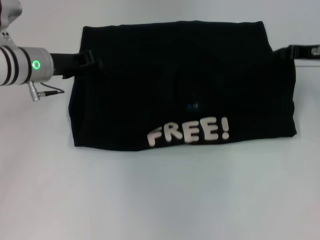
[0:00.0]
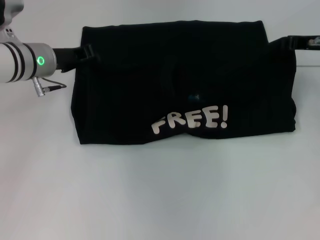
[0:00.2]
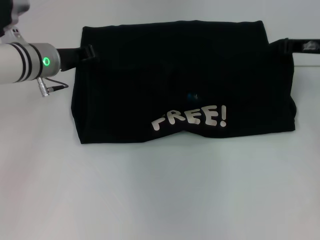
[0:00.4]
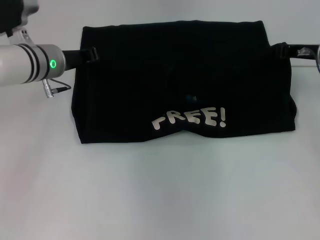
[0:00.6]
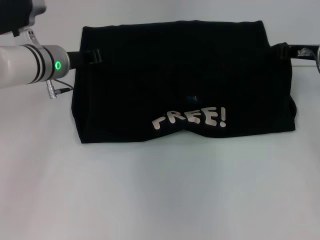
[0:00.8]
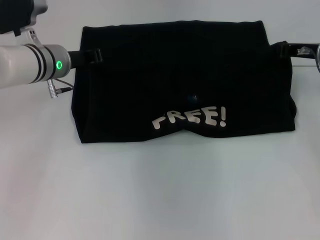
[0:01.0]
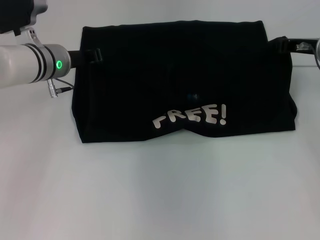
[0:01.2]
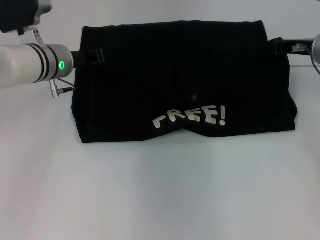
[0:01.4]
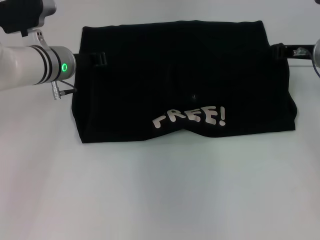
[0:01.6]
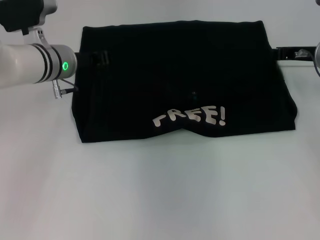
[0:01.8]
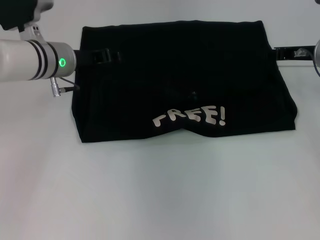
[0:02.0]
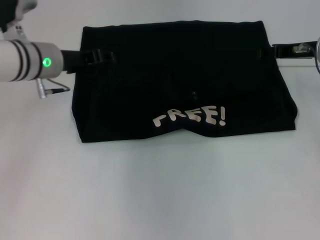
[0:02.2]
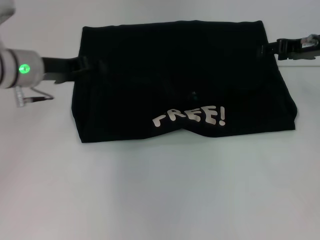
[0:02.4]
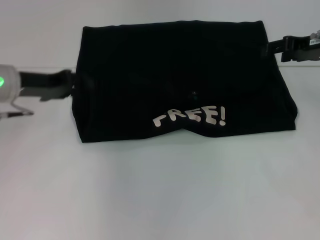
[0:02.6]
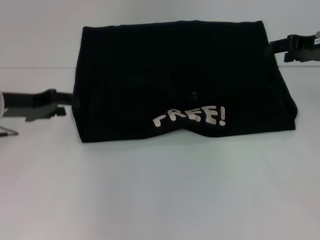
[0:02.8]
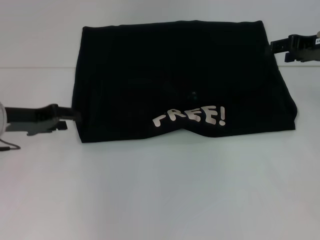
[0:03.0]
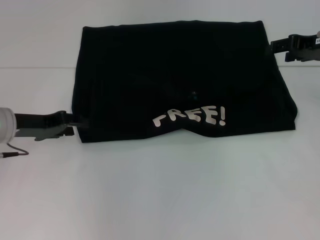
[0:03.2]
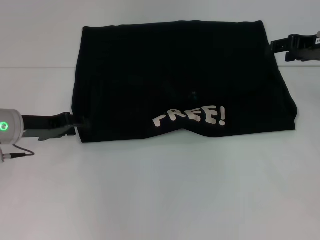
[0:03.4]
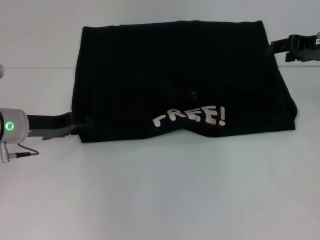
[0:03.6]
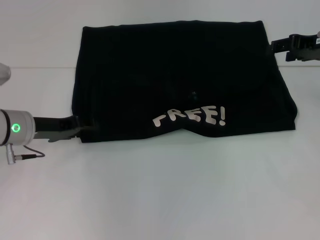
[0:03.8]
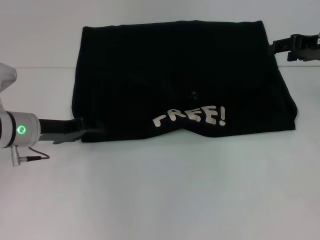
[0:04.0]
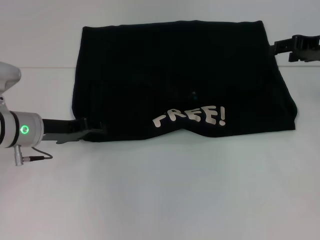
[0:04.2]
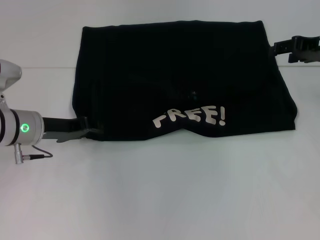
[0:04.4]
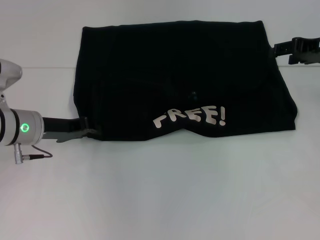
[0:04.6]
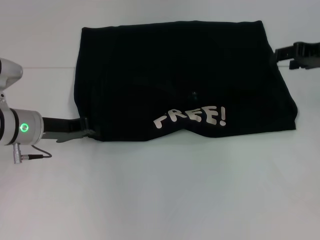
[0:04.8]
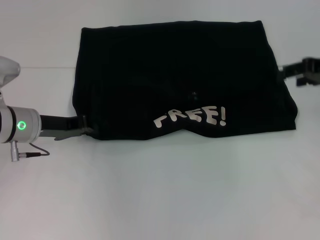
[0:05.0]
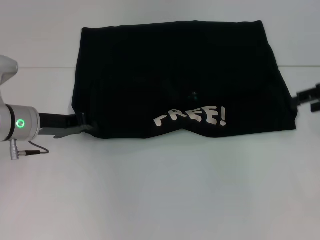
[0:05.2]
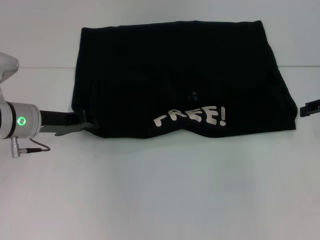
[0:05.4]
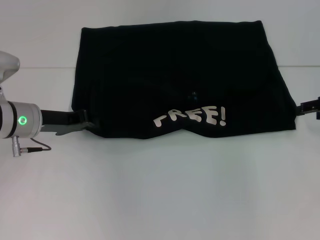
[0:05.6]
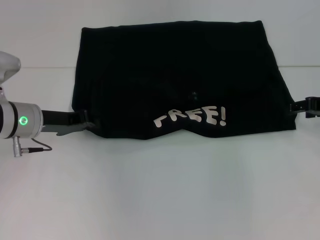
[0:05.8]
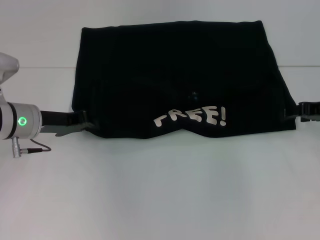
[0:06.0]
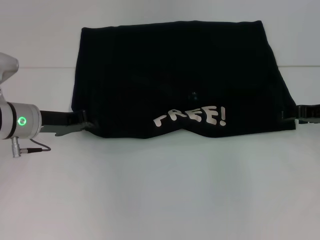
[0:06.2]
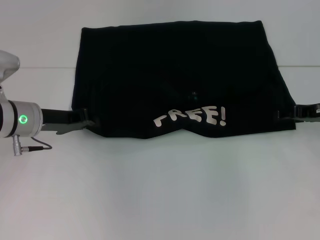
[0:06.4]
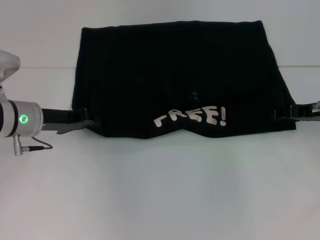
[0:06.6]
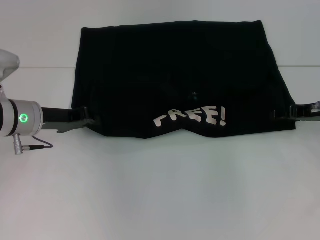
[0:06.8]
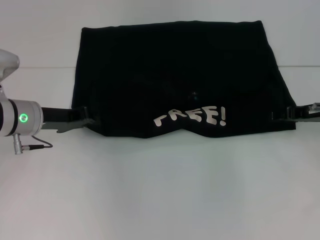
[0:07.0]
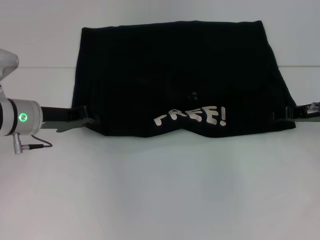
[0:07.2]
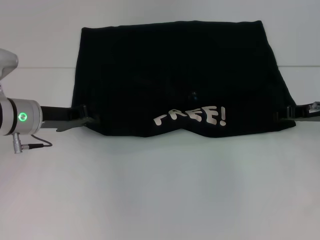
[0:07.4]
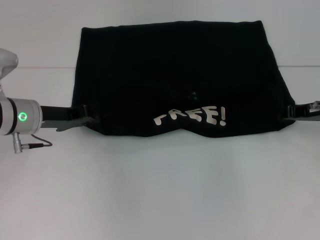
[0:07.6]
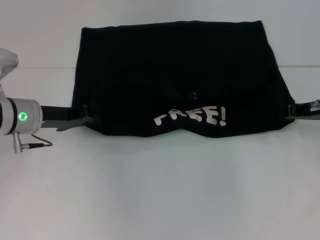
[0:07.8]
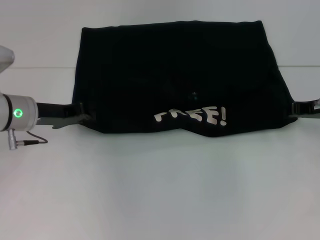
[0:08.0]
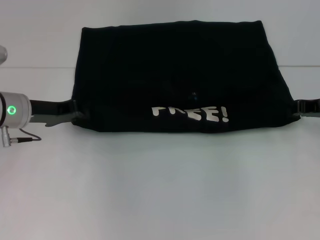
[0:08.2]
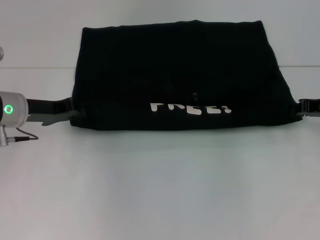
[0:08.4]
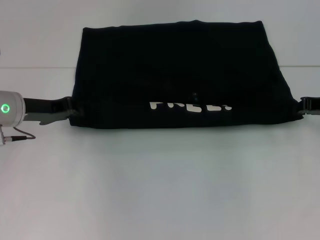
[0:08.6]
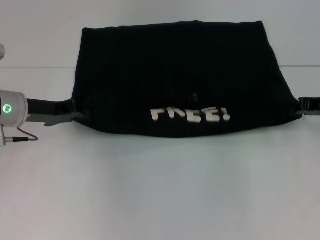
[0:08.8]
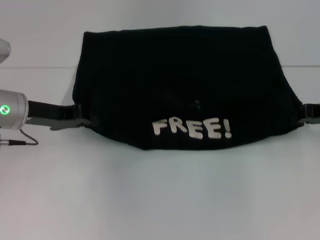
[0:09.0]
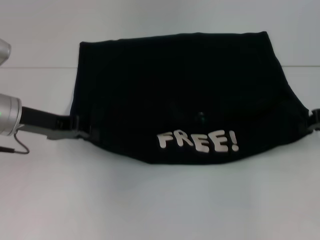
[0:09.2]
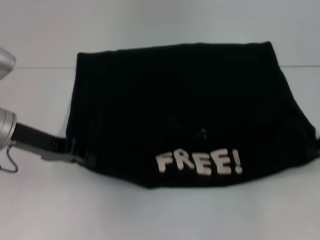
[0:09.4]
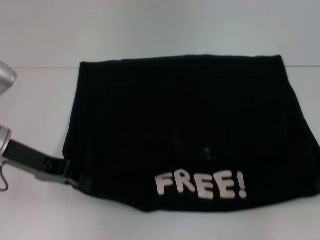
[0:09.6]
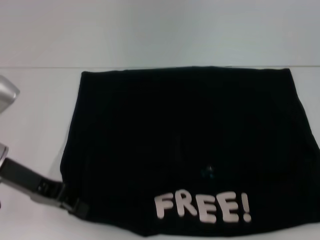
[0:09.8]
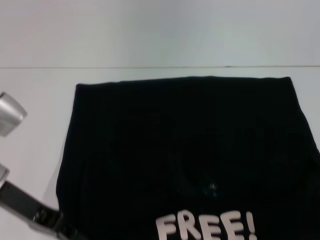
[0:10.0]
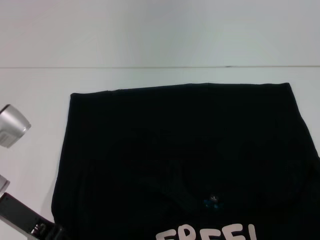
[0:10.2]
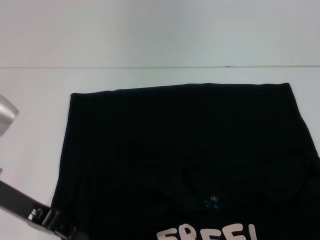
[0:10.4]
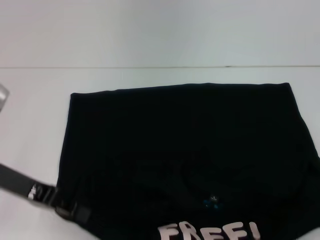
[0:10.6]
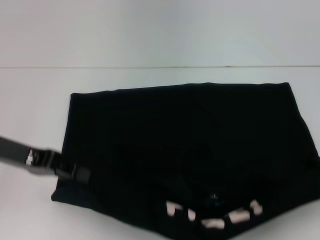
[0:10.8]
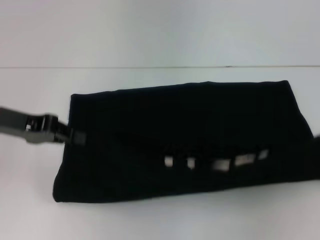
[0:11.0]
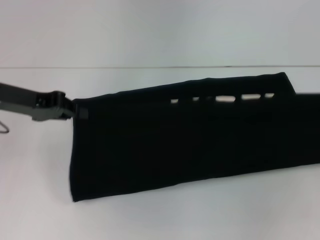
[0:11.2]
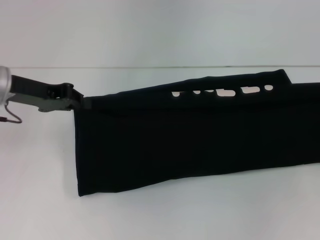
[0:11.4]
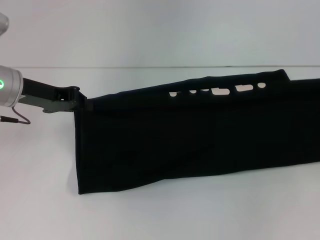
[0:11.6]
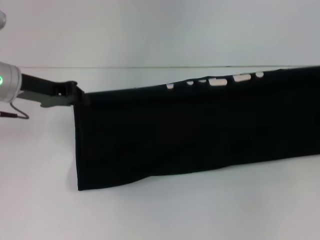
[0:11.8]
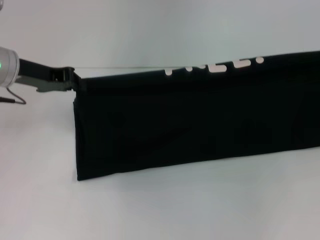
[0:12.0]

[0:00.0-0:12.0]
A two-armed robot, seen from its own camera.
Step, 0:00.0 to 0:02.2: Fold the clothes with your left hand.
Step, 0:00.0 to 0:02.2: Fold the clothes with your right hand.
Step, 0:02.4 to 0:10.0: Pull the clothes with your left hand.
Step, 0:02.4 to 0:10.0: Pull the clothes with your right hand.
0:00.0 to 0:01.6: The grippers make only small movements.
0:01.6 to 0:03.0: The left gripper goes about 15 cm to the left and backward, and opens up. The right gripper is displaced upward by about 5 cm, and opens its fingers.
0:03.0 to 0:04.4: The left gripper changes place by approximately 5 cm.
0:04.4 to 0:06.0: The right gripper heads downward, covering about 5 cm. The left gripper closes its fingers.
0:06.0 to 0:07.6: The right gripper closes its fingers.
0:07.6 to 0:09.0: The grippers move only a little.
0:09.0 to 0:10.4: Both grippers travel together backward, about 10 cm.
0:10.4 to 0:12.0: The right gripper travels forward and upward by roughly 10 cm. The left gripper travels forward by approximately 15 cm.

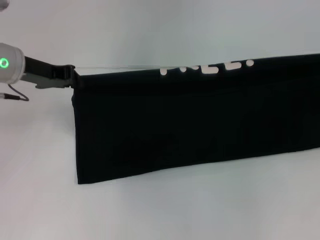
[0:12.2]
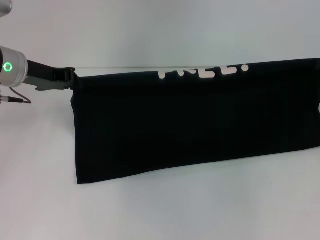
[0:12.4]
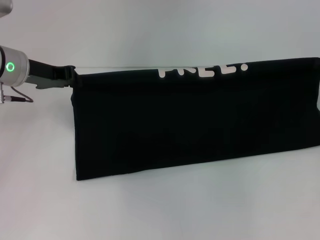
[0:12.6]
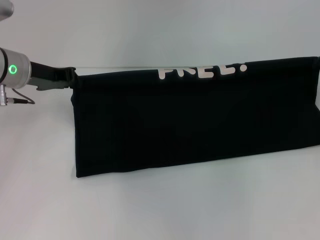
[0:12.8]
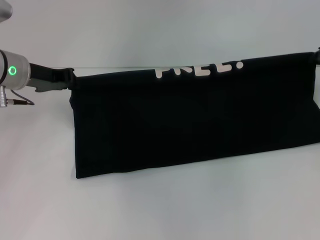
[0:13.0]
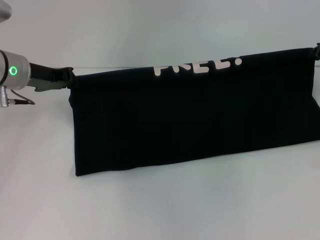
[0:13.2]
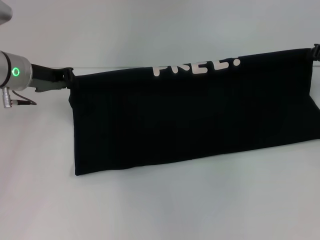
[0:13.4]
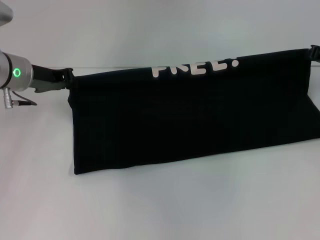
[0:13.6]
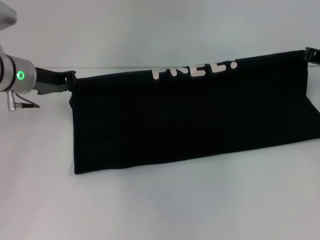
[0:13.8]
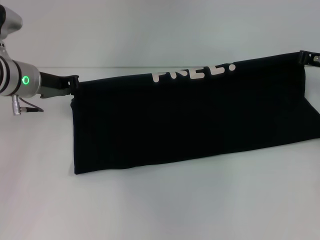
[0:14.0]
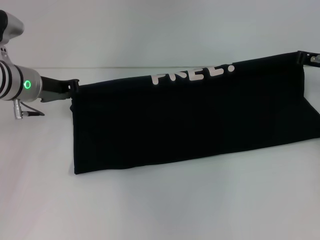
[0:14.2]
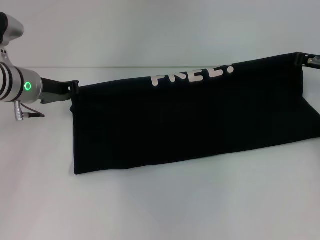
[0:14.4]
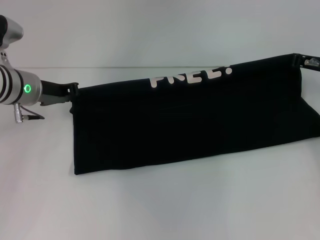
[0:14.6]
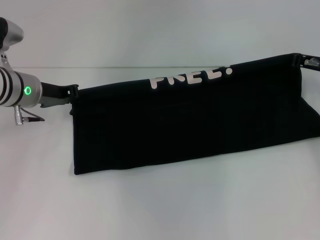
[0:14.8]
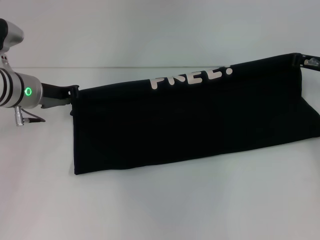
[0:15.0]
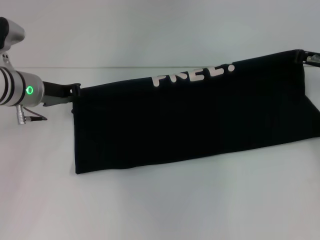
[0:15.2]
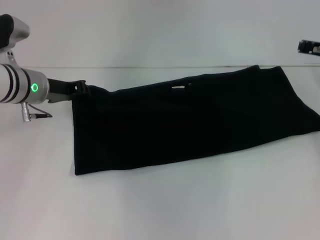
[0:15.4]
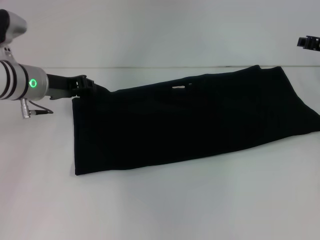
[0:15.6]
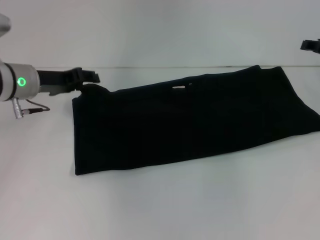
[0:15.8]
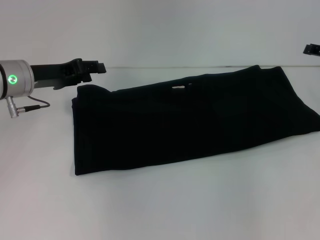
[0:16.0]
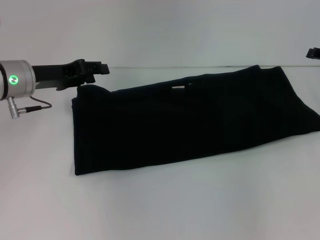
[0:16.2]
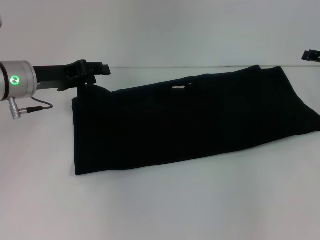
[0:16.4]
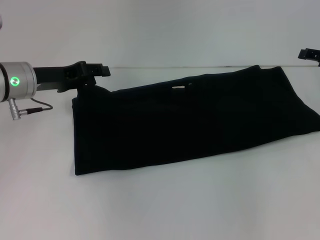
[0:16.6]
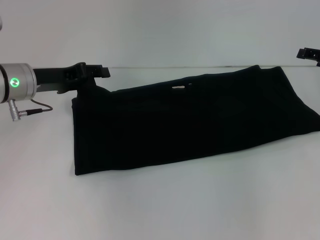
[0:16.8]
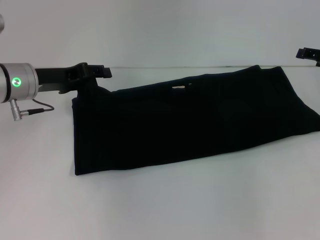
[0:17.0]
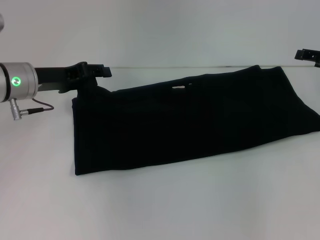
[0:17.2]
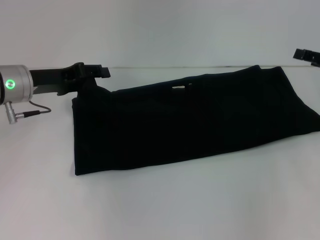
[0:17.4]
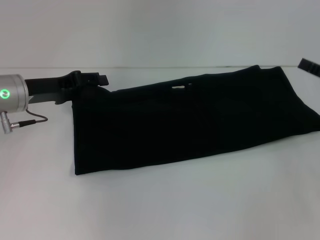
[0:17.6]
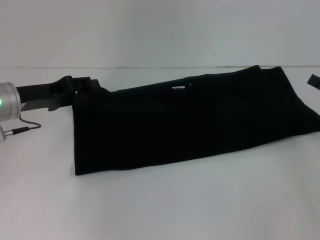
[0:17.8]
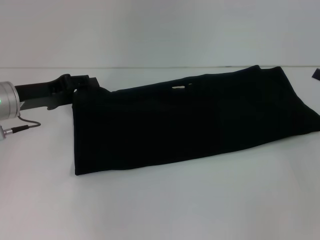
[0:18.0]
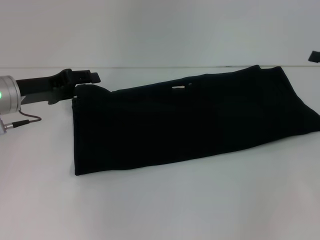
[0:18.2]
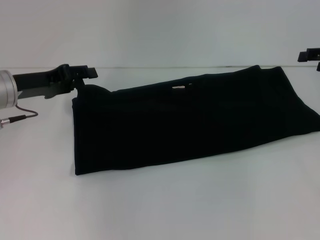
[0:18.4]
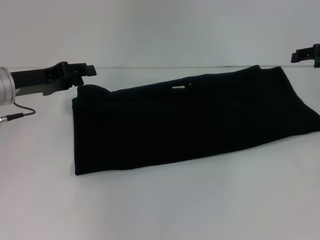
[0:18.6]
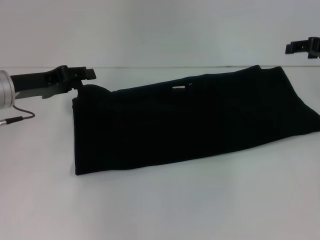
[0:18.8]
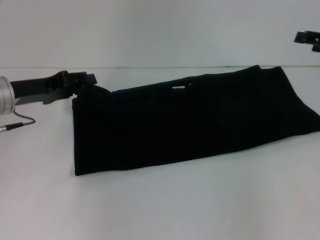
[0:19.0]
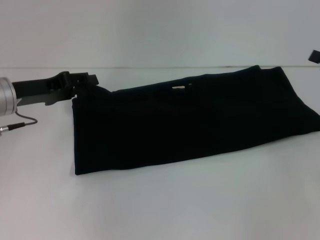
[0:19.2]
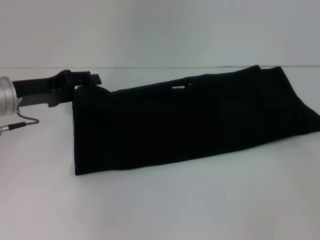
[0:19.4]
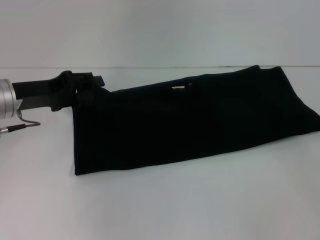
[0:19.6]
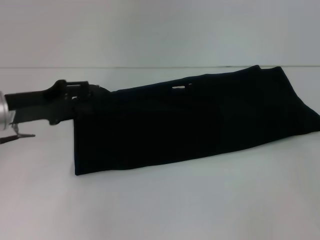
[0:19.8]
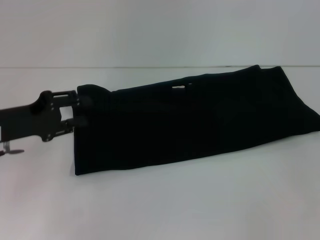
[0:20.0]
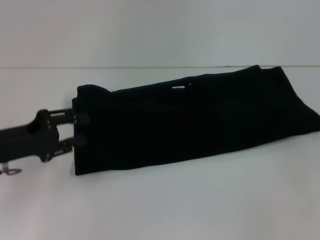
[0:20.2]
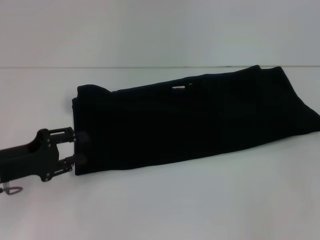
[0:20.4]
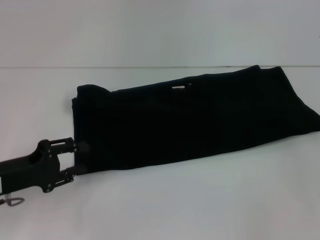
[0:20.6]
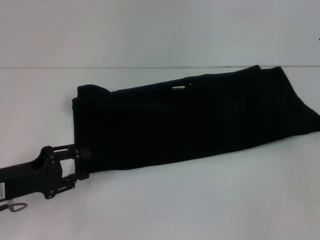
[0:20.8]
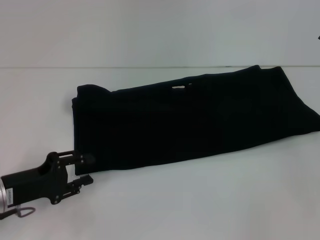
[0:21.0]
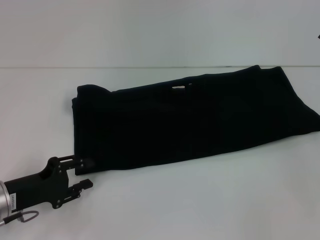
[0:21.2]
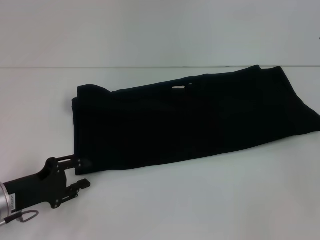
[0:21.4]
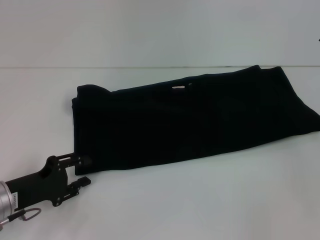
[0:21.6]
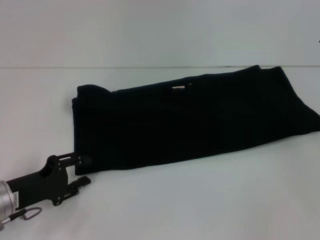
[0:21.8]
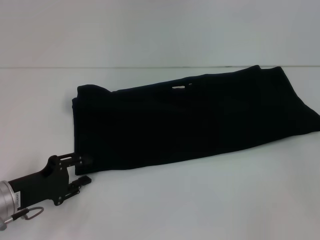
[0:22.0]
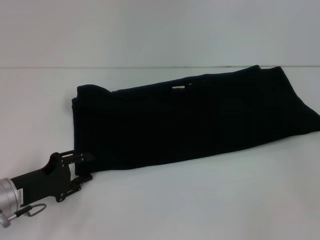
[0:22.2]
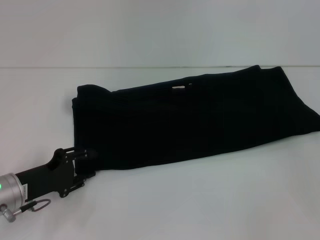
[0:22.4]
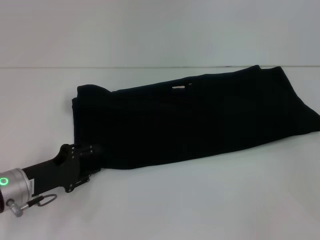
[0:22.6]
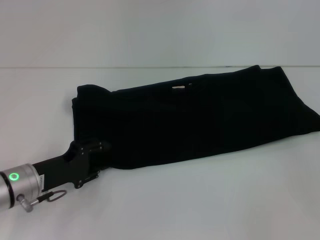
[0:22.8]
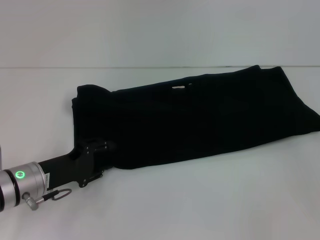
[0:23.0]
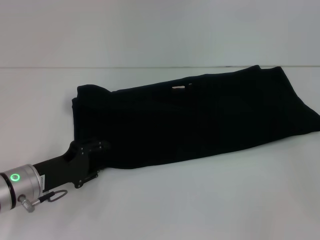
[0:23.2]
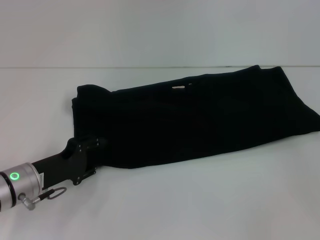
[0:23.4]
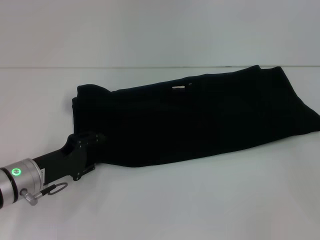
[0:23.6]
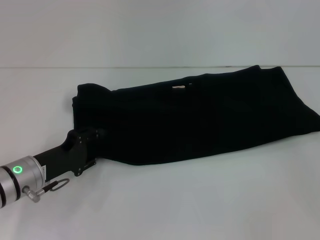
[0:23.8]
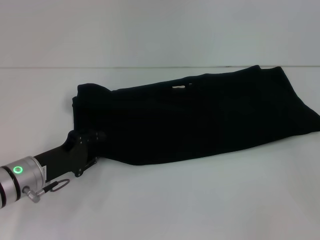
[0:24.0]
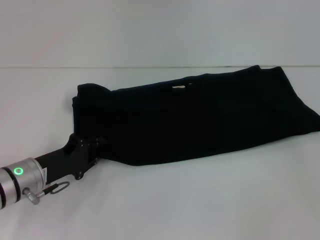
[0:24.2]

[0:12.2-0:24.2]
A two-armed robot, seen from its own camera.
Step, 0:12.2 to 0:15.8: Fold the clothes with your right hand.
0:12.2 to 0:13.8: The right gripper is displaced to the left by approximately 5 cm.
0:13.8 to 0:15.2: The grippers stay close to where they were, moving slightly.
0:15.2 to 0:16.6: The left gripper opens, while the right gripper shifts roughly 5 cm to the right, and opens up.
0:19.8 to 0:21.2: The left gripper heads downward and backward, covering roughly 15 cm.
0:21.2 to 0:24.2: The grippers make only small movements.
